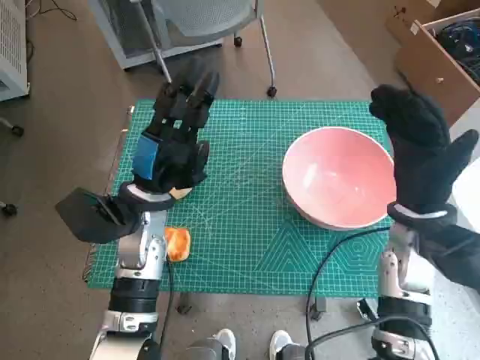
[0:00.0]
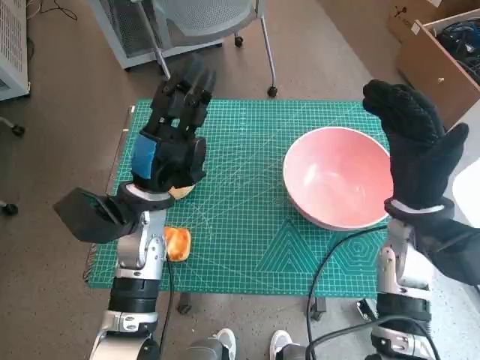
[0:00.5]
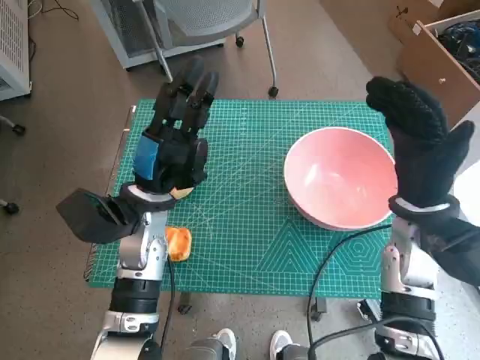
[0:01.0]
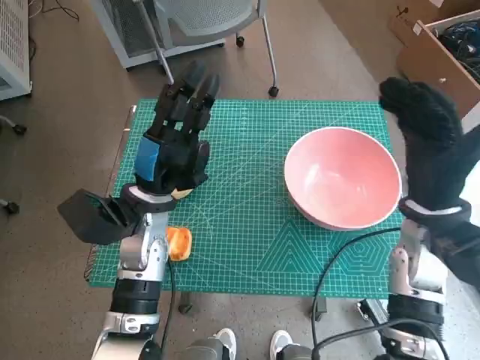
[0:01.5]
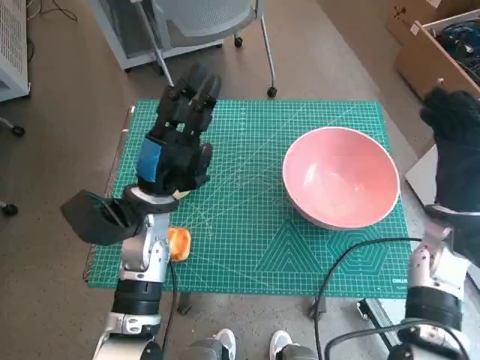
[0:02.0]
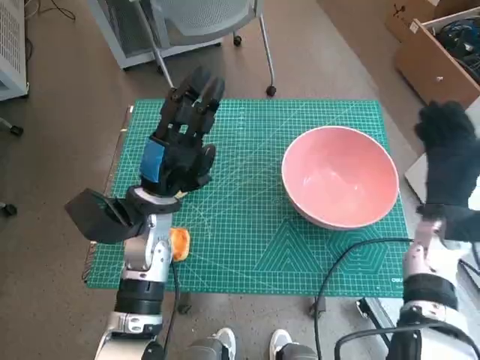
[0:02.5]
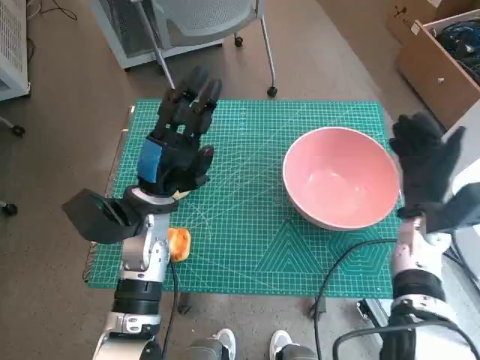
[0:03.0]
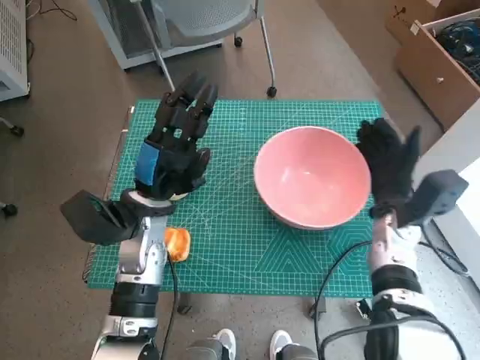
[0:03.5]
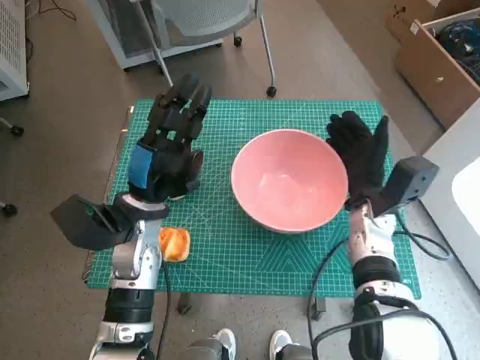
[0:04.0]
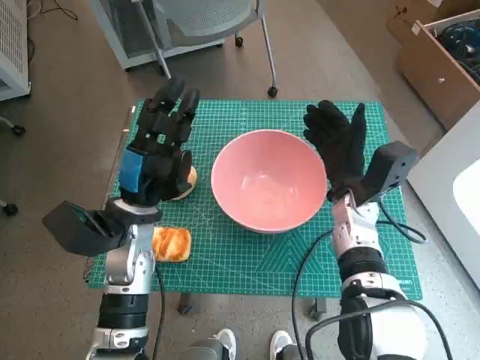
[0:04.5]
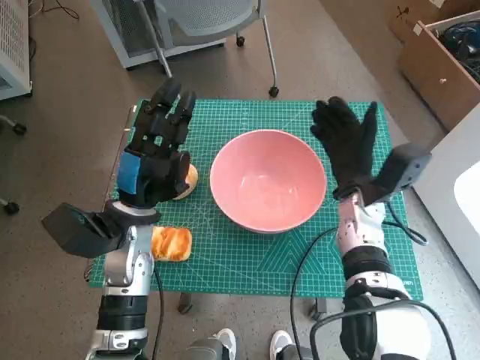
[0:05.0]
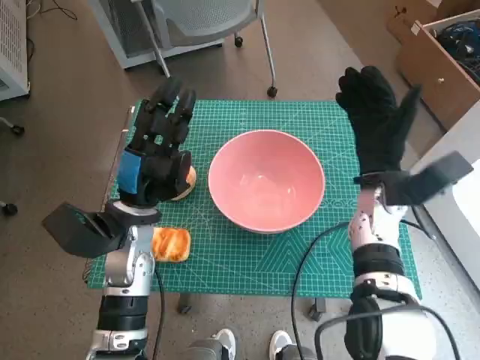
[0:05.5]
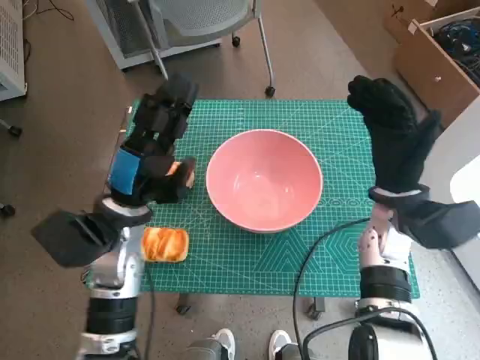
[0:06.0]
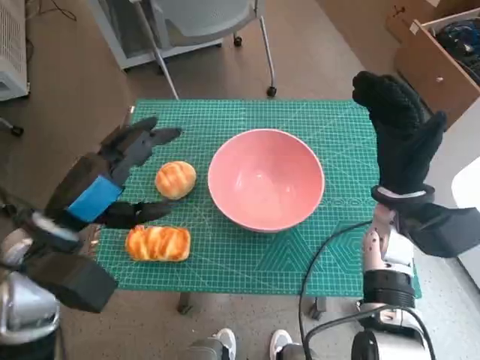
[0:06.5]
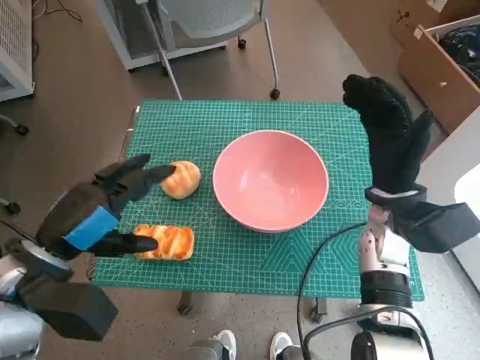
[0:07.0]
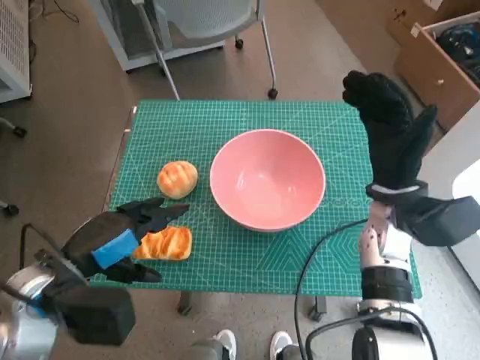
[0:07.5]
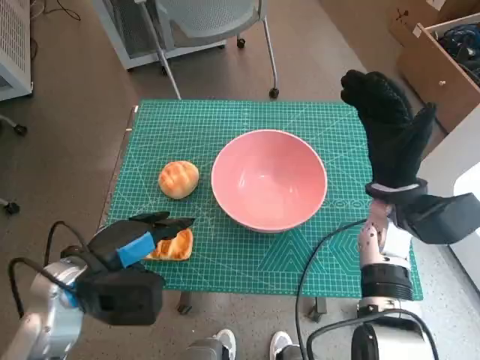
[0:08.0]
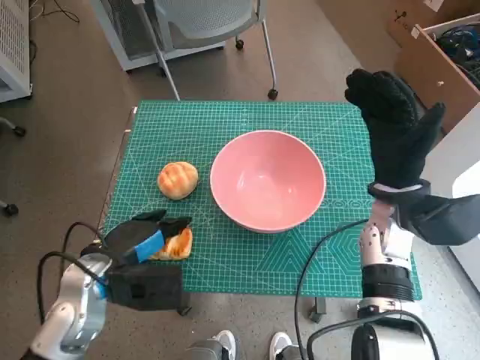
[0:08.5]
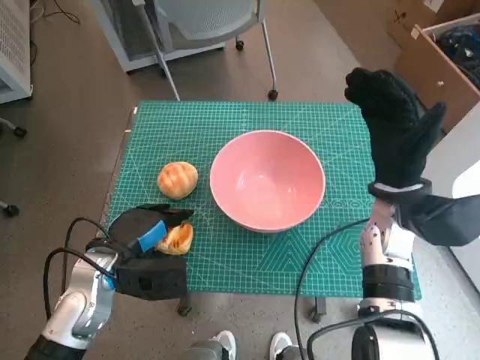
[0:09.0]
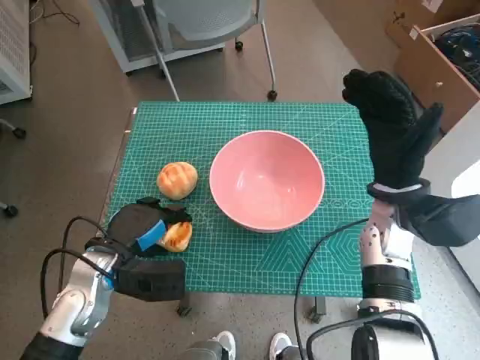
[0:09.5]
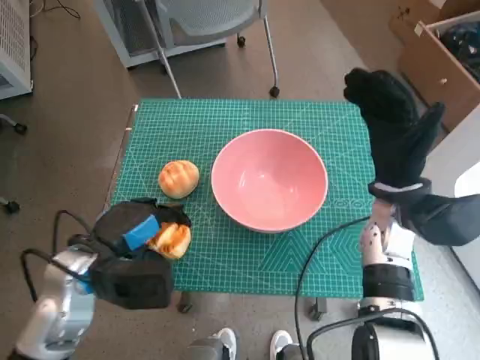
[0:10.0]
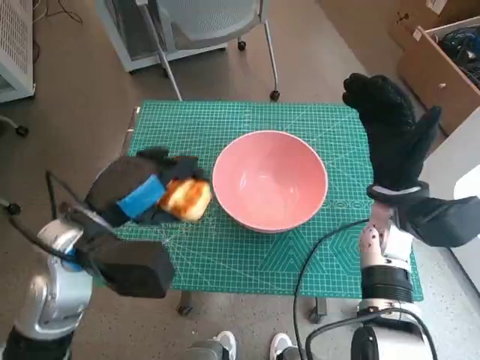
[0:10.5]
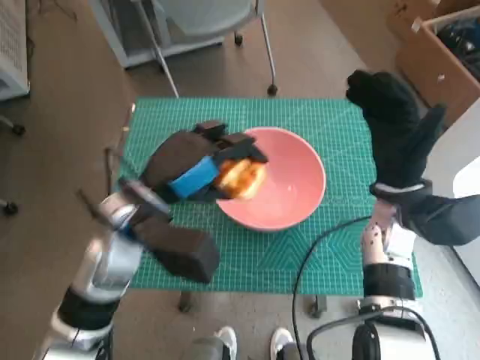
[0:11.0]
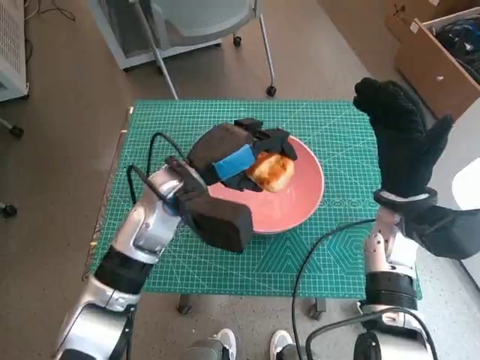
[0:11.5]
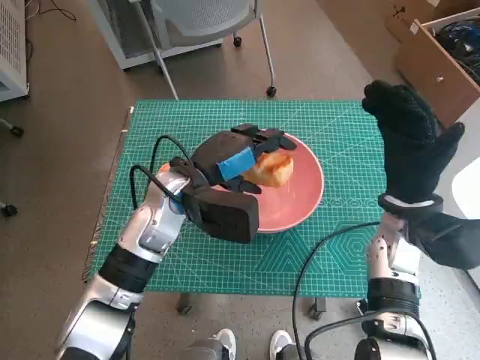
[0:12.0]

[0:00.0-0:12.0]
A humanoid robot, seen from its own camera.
Step, 0:00.0 to 0:04.5: Move the pink bowl to the center of table with right hand.
Step, 0:05.0 to 0:08.5: Grasp the long bread with left hand.
0:02.0 to 0:04.0: The right hand heads to the left and downward, covering roughly 10 cm.
0:04.0 to 0:06.0: The right hand travels upward by approximately 5 cm.
0:06.0 to 0:08.0: The left hand heads backward, covering about 10 cm.
0:10.0 to 0:12.0: The left hand travels to the right and forward by roughly 15 cm.

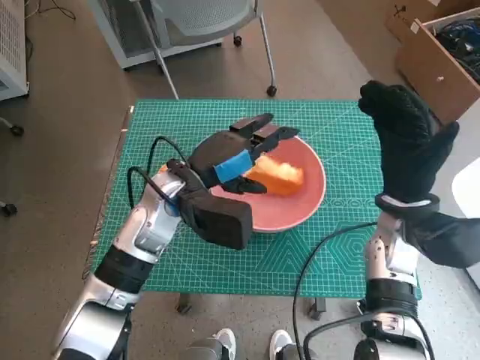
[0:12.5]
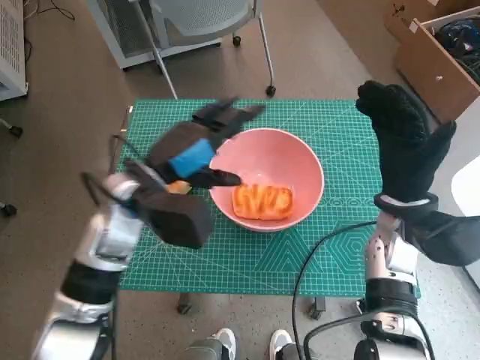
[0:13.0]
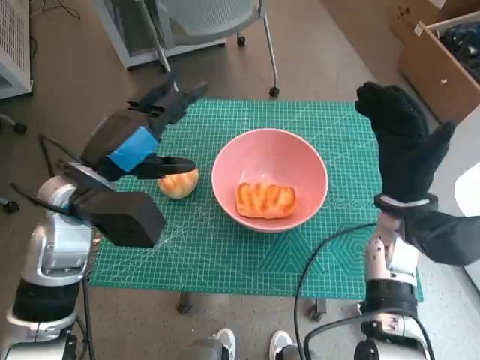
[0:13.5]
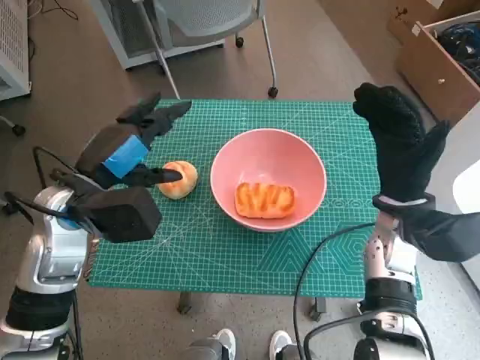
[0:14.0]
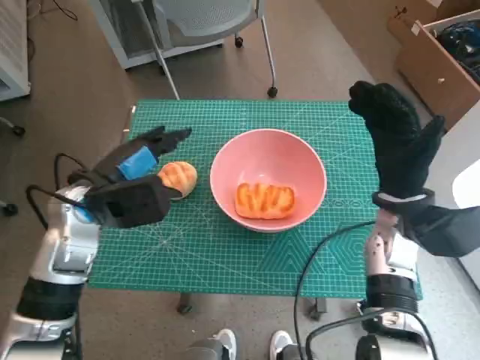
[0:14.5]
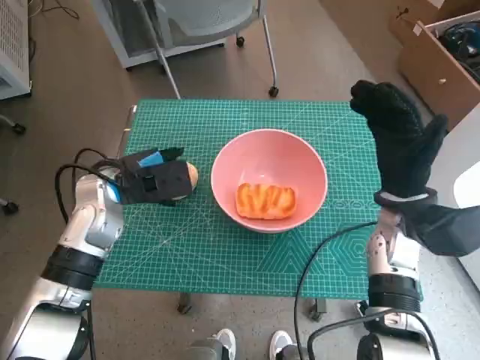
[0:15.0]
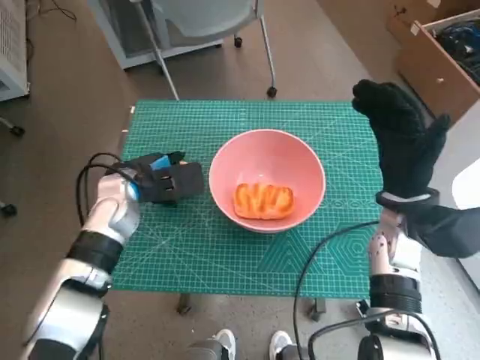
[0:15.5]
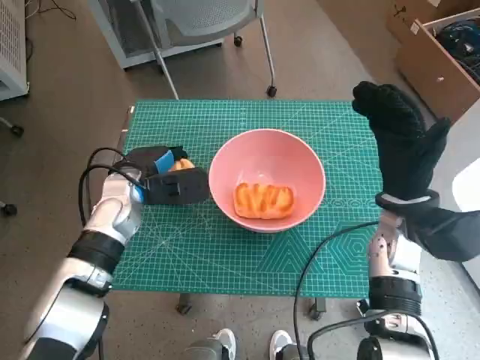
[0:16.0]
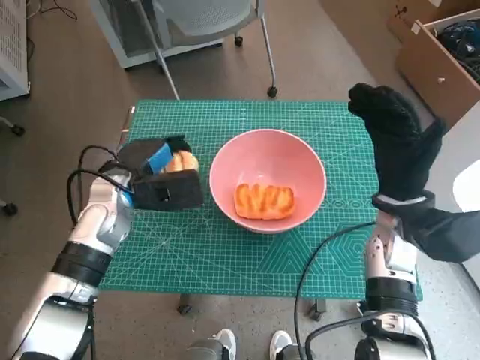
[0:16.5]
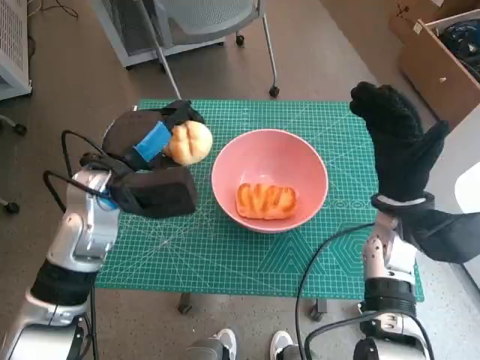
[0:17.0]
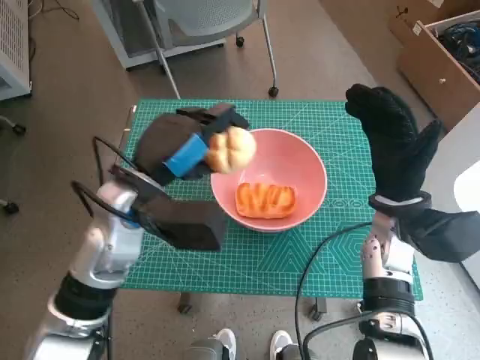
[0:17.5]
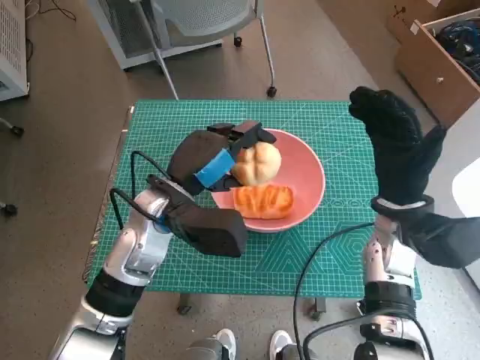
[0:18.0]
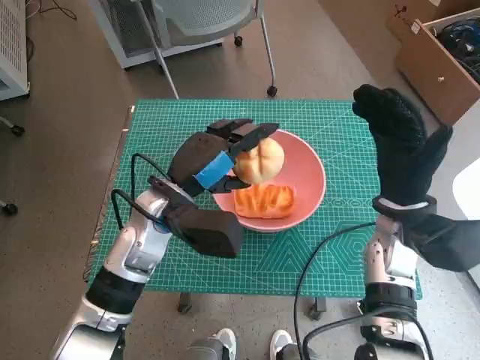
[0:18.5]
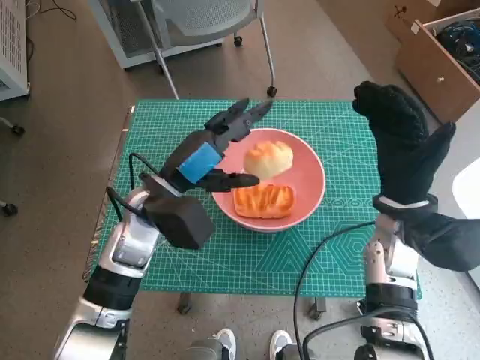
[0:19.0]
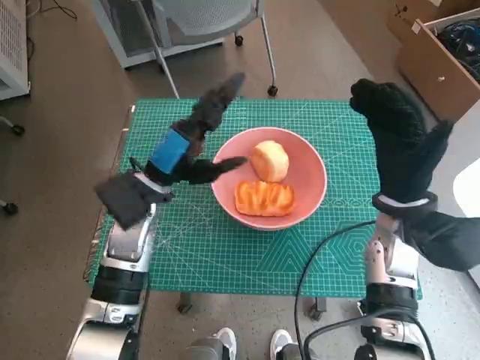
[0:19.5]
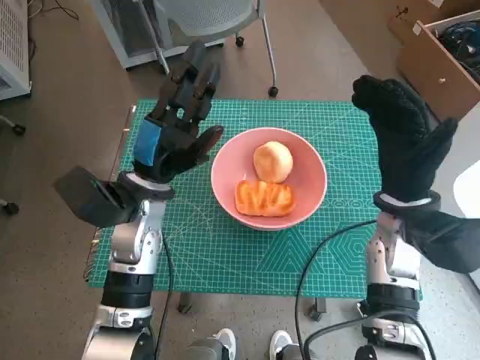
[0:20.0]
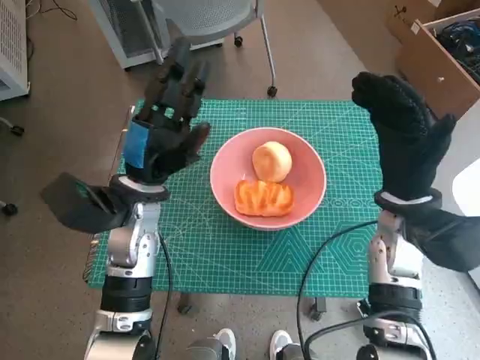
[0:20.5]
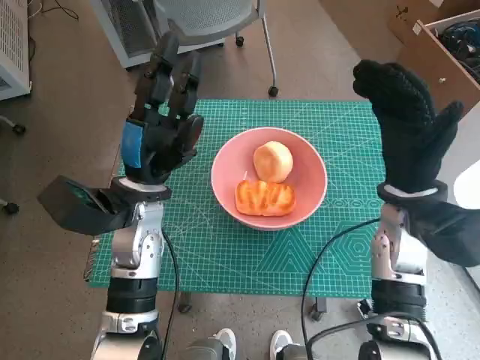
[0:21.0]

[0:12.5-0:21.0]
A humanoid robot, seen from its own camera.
Step, 0:12.5 to 0:15.5: Grasp the round bread with left hand.
Step, 0:16.0 to 0:19.0: Place the round bread in pink bowl with left hand.
0:12.5 to 0:14.5: The left hand shifts approximately 10 cm to the left.
0:14.5 to 0:16.5: The left hand ends up approximately 5 cm from where it was.
0:16.5 to 0:19.0: The left hand moves to the right, about 5 cm.
